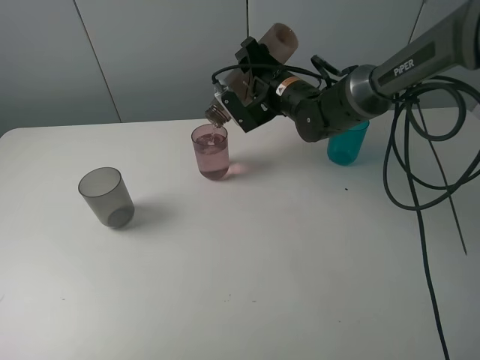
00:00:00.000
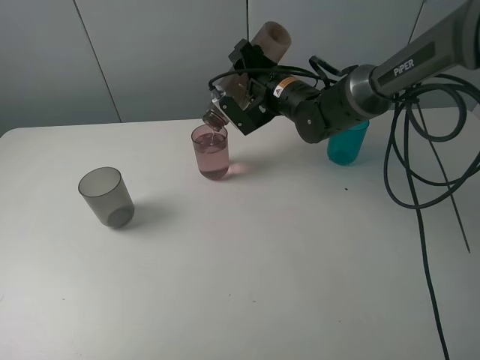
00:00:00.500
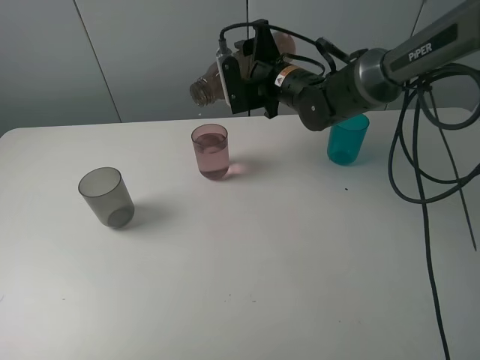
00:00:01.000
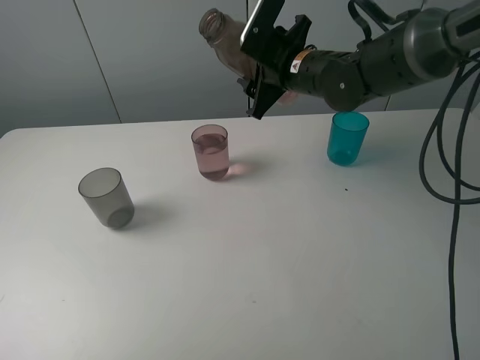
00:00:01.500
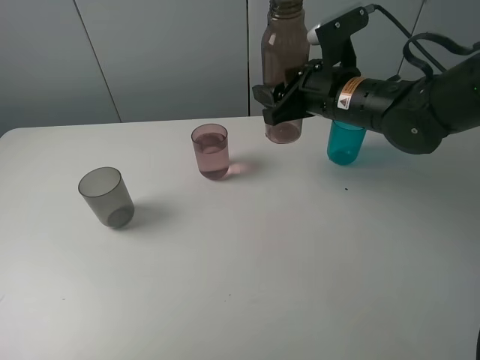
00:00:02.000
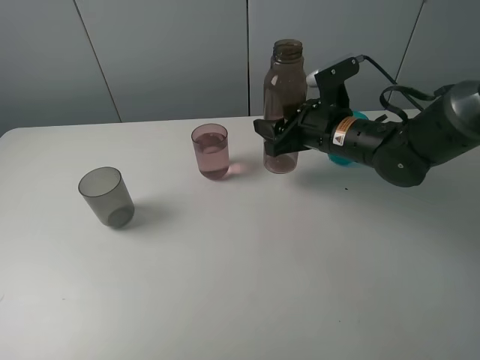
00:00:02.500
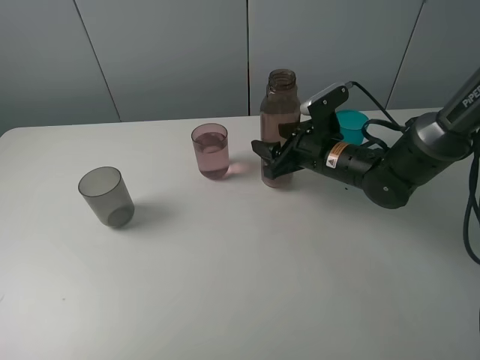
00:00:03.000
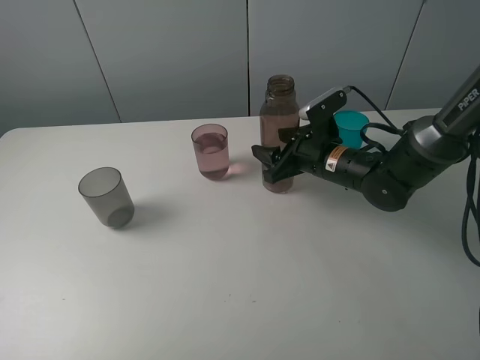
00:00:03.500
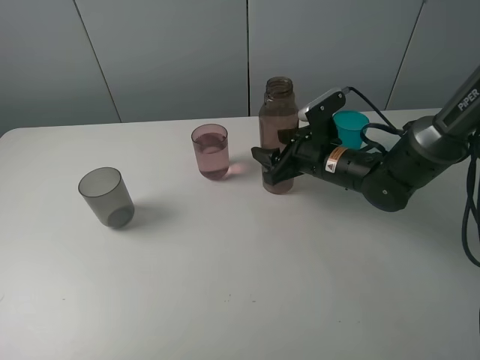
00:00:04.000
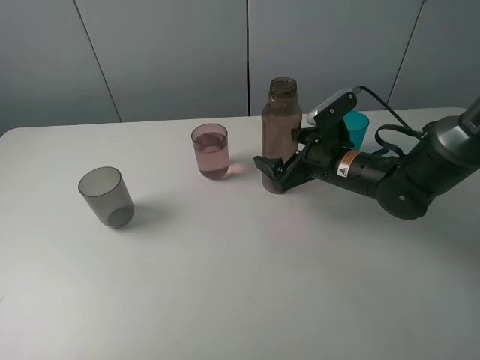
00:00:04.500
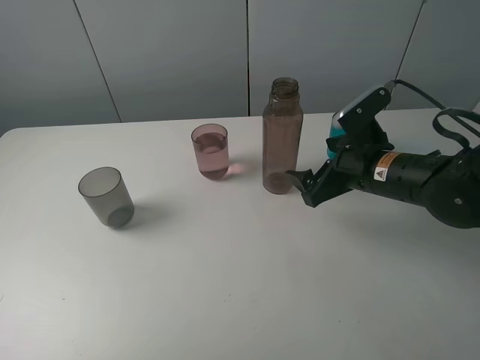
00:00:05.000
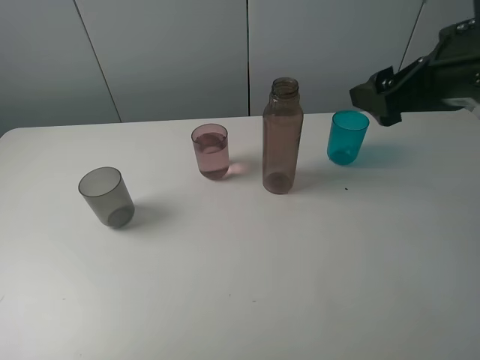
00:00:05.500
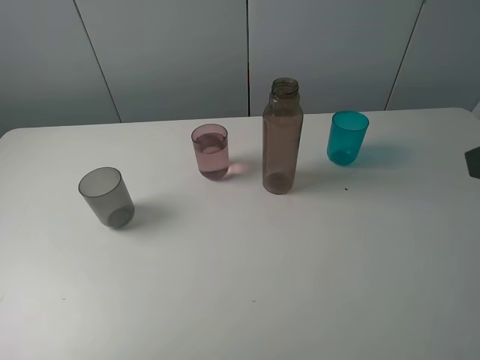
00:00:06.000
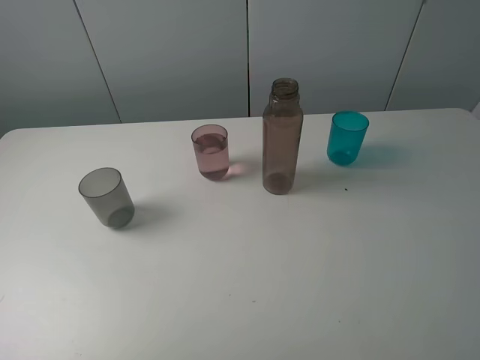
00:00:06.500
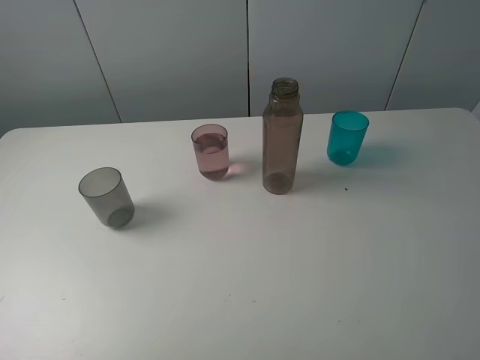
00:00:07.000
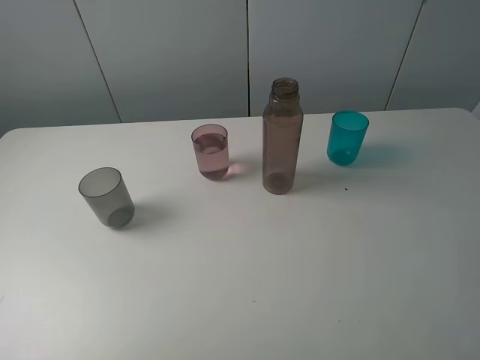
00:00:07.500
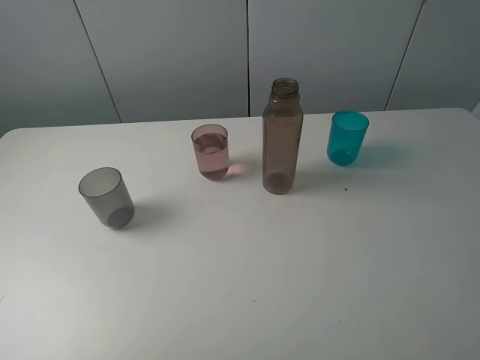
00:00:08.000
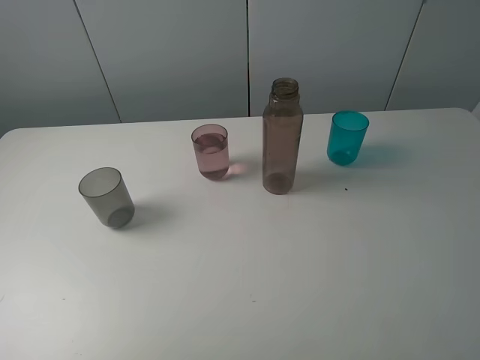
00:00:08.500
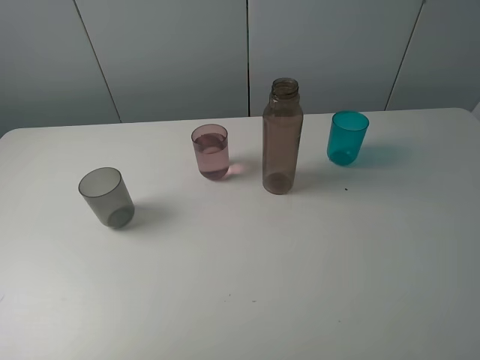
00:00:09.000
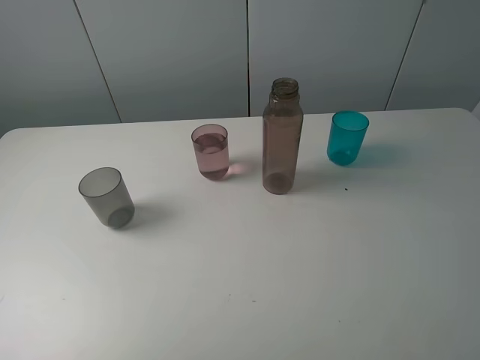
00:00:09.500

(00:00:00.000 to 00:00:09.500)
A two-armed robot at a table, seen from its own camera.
Task of the whole recording: pick up the bottle filled with water and pour water into the middle cup of the three cups.
Step, 00:00:00.000 - 00:00:04.000: Place the brown bottle with the right gripper.
00:00:00.000 - 00:00:02.000: The right gripper heads backward and to the right, covering roughly 10 cm.
00:00:02.000 - 00:00:04.000: The right gripper travels downward by roughly 10 cm.
00:00:04.000 - 00:00:05.500: The right gripper shifts approximately 25 cm upward and backward, and opens up.
00:00:05.500 - 00:00:07.500: The right gripper travels backward by about 20 cm.
00:00:07.500 - 00:00:09.500: Neither gripper changes place.
